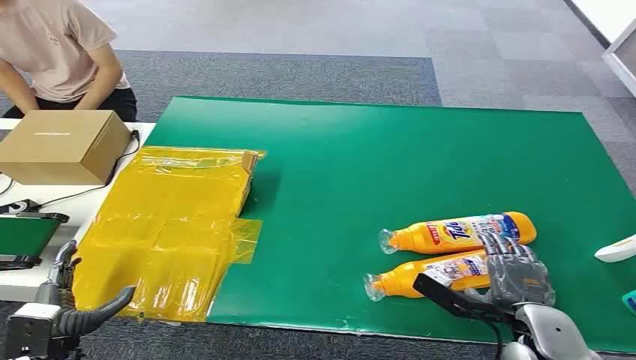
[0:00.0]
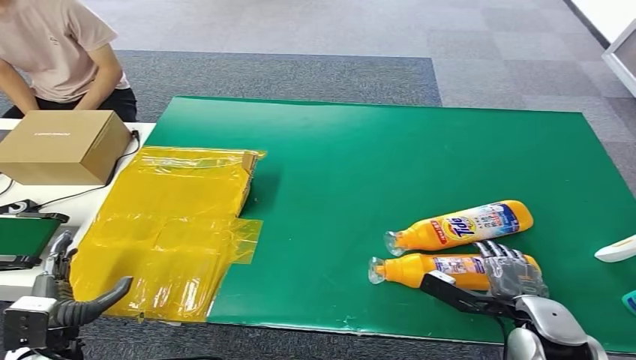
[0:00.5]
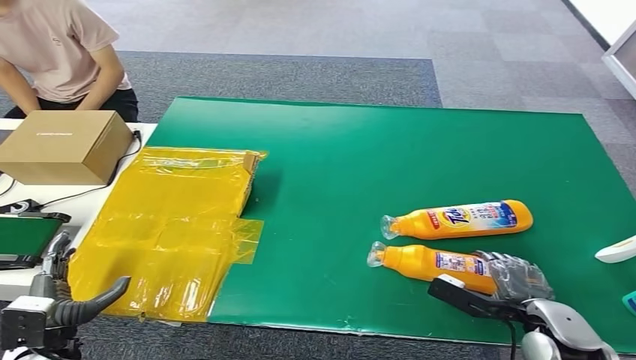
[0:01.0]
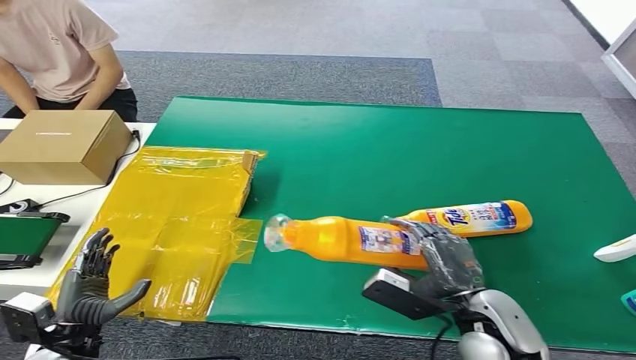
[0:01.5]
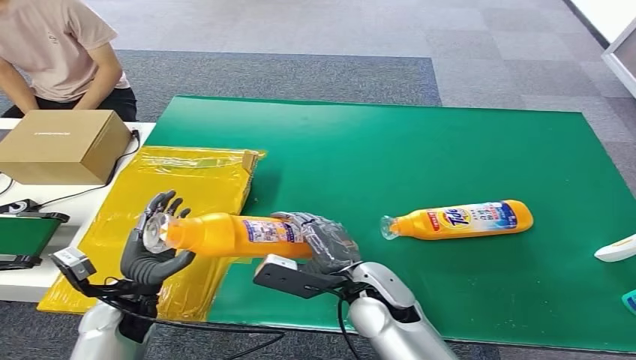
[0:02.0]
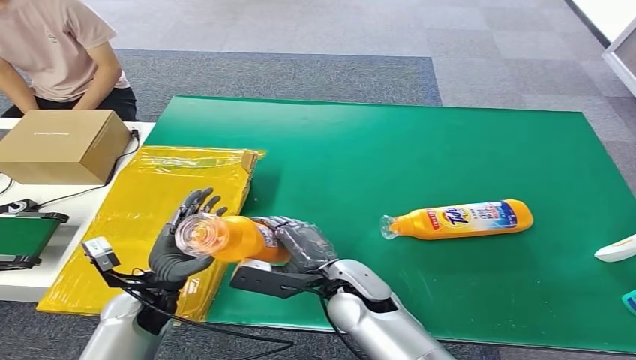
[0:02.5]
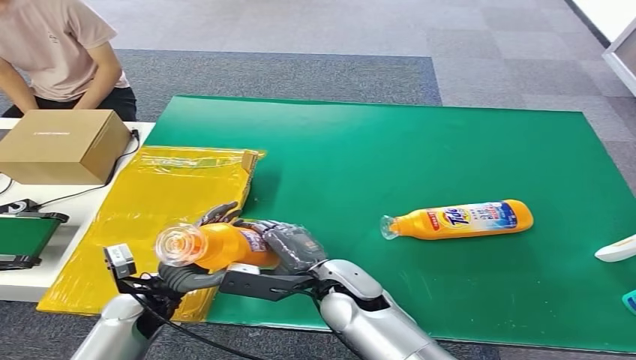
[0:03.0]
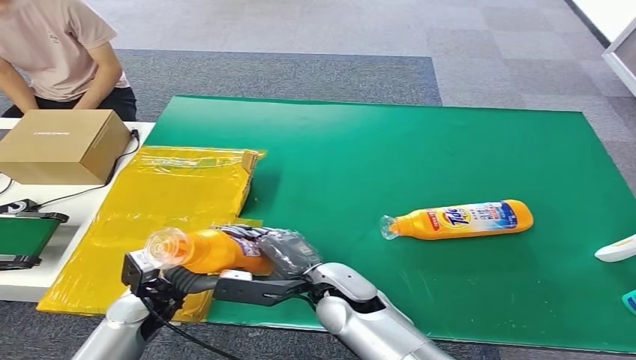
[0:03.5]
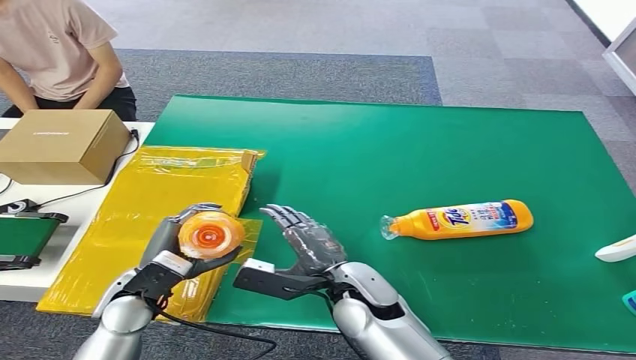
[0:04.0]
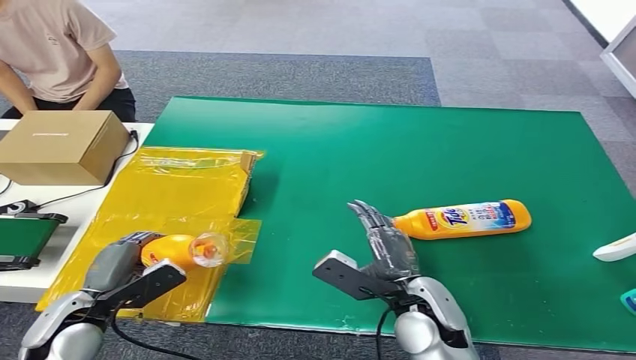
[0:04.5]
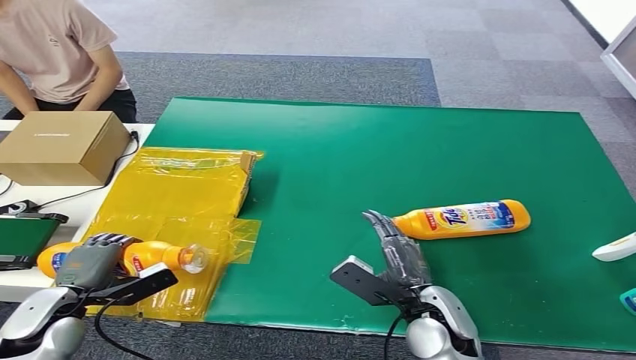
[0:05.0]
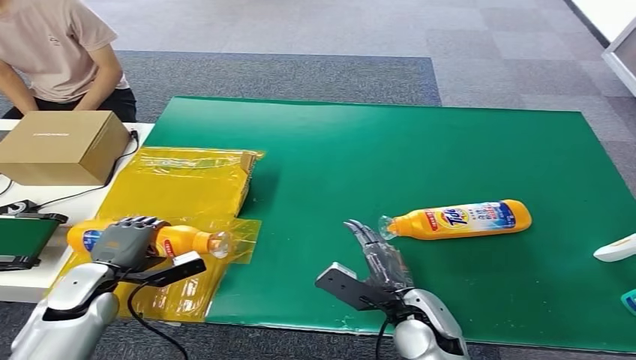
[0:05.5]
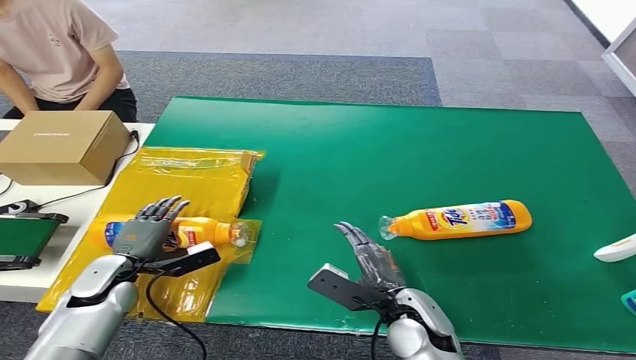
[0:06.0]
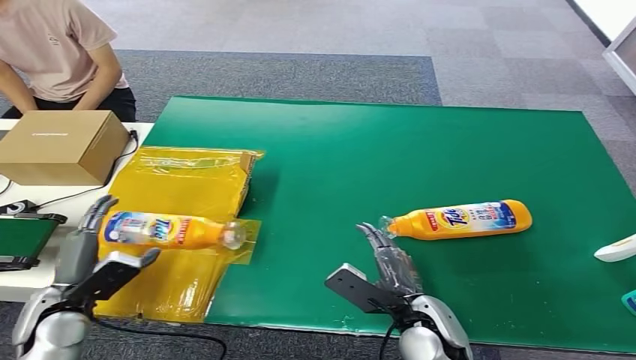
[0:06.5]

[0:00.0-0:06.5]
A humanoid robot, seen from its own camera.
Step, 0:00.0 to 0:01.5: Pick up the bottle from the table.
Step, 0:02.0 to 0:06.5: Turn the bottle to the front side.
0:02.0 to 0:04.5: The left hand changes place by approximately 5 cm; the right hand moves to the right, approximately 5 cm.
0:04.5 to 0:06.5: The left hand reaches approximately 10 cm forward, then returns.
